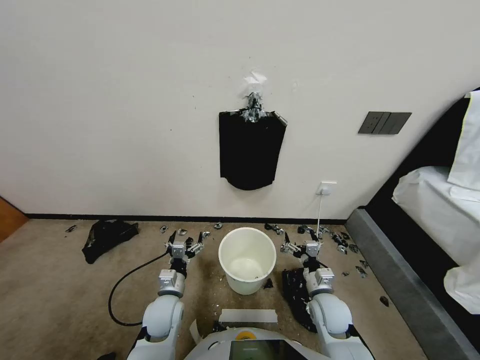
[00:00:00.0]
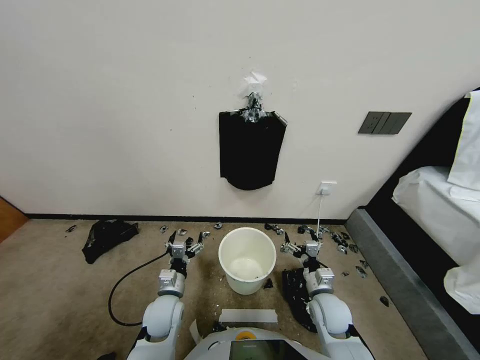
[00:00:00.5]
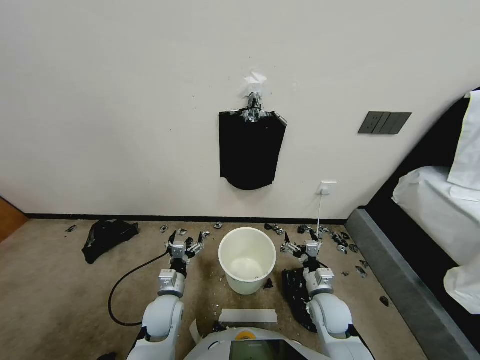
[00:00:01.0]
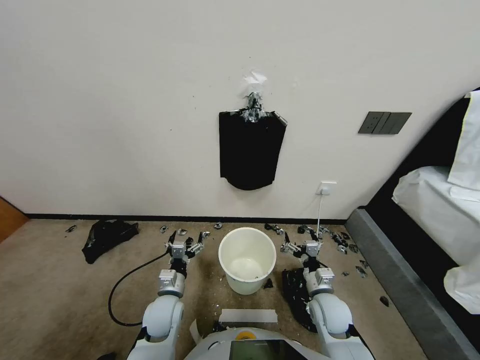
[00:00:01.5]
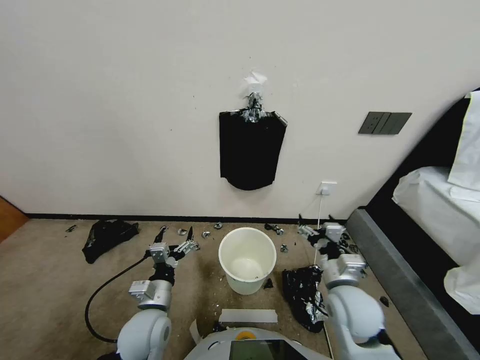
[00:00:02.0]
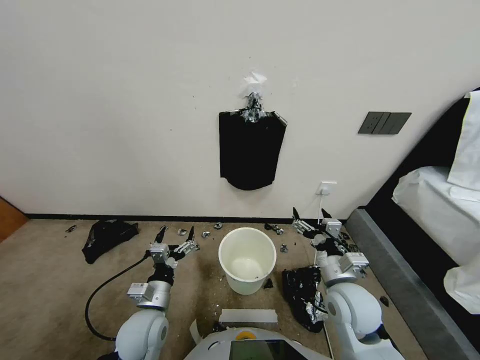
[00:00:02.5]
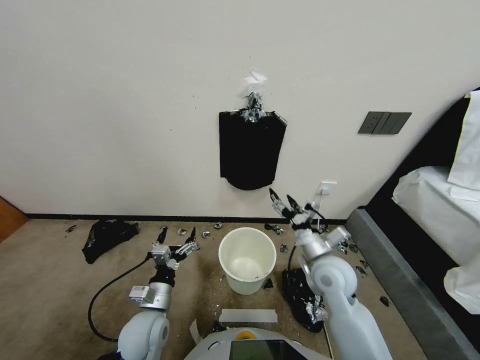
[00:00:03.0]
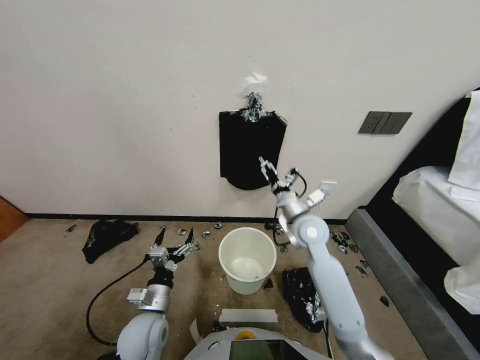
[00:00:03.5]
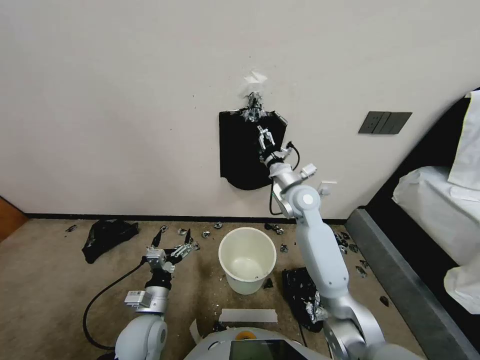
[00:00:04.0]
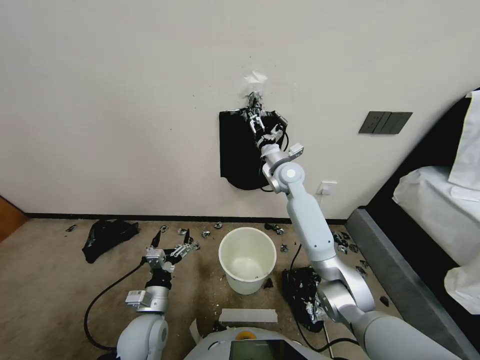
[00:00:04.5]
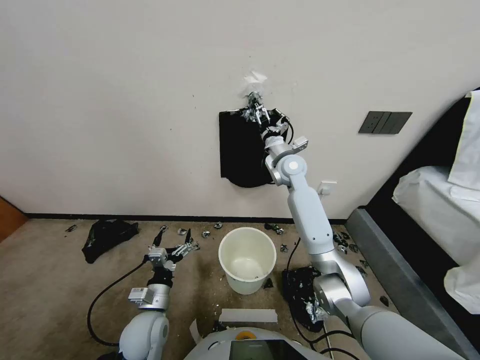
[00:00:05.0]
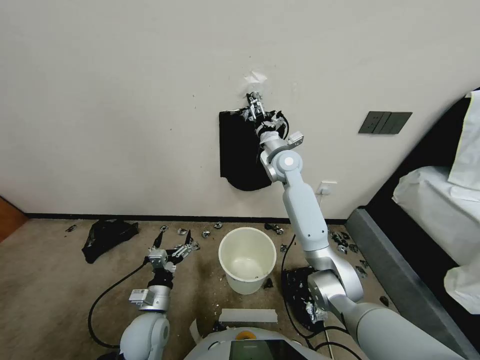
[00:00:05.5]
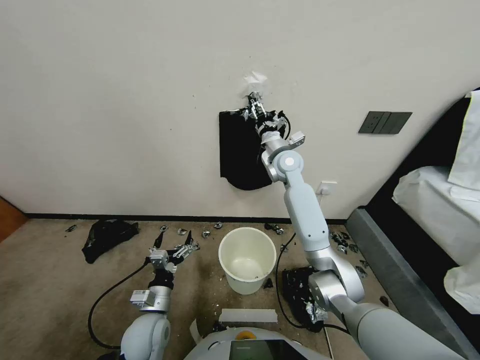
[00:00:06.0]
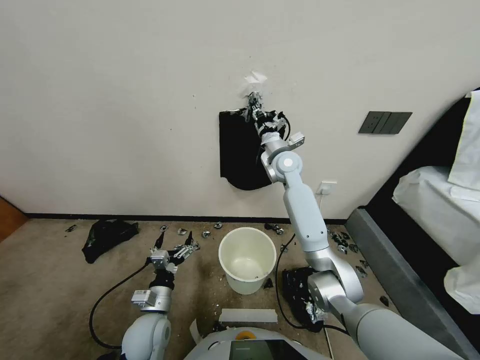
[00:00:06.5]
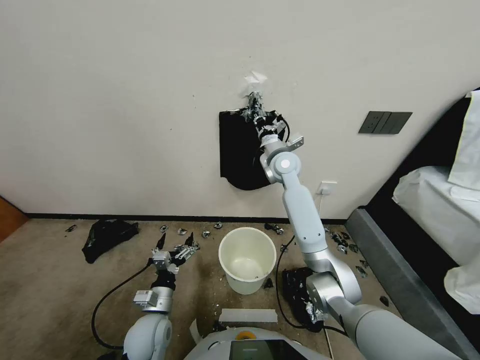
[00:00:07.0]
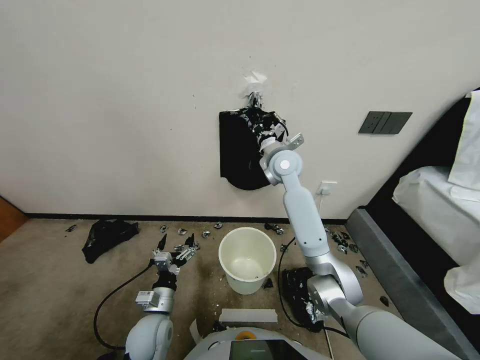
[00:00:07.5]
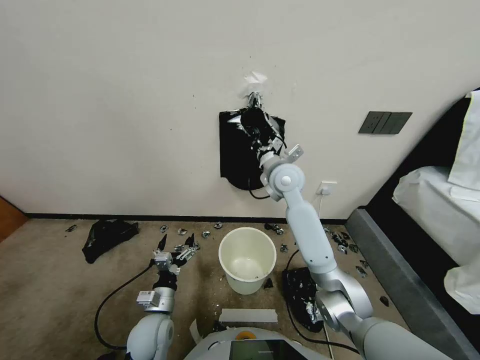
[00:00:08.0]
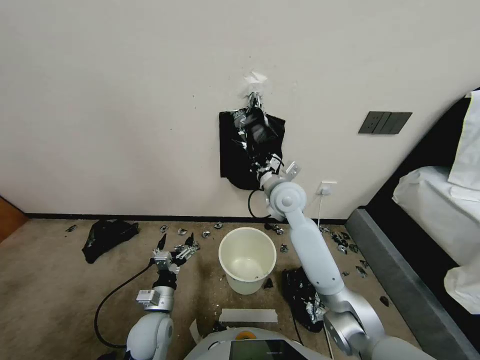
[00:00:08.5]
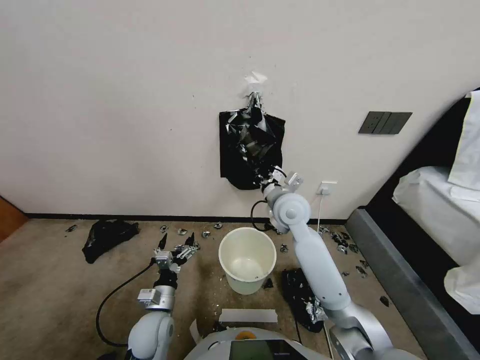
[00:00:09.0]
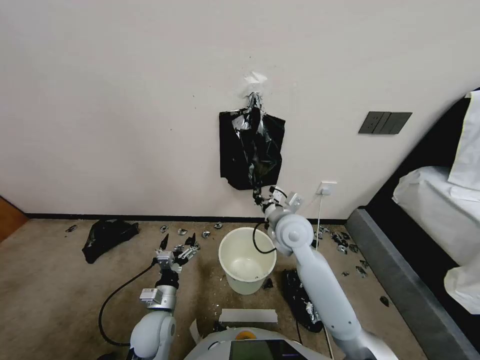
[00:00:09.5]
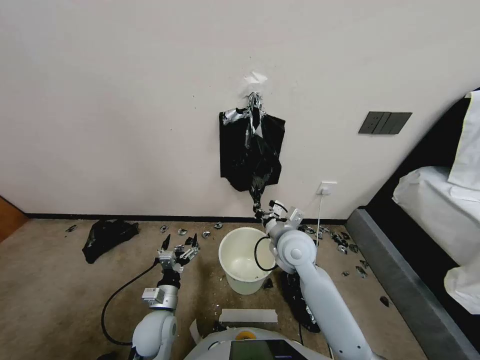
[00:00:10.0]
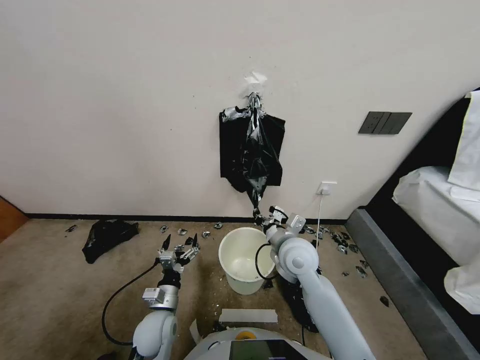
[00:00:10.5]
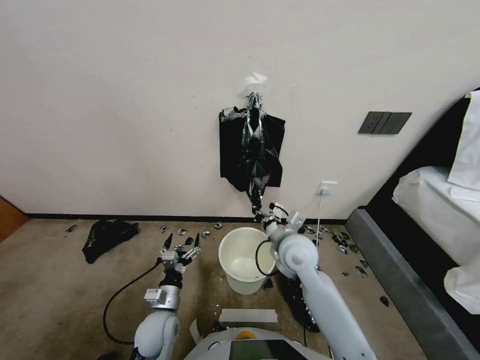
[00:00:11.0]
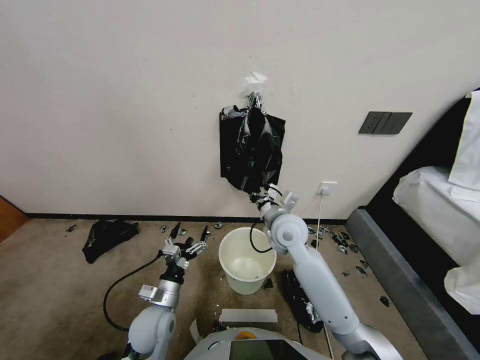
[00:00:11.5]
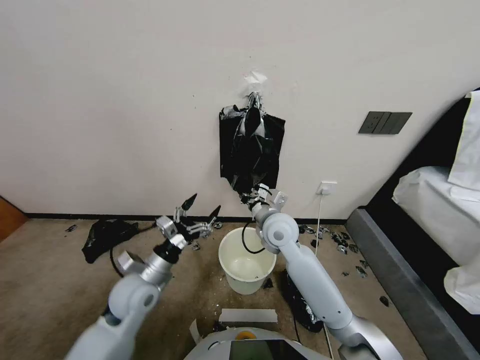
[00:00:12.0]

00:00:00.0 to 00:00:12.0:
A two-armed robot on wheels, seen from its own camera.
Task of the whole recording: Place a trash bag onto the trash bin.
00:00:02.0 to 00:00:04.0: The right gripper shifts some 30 cm forward.
00:00:04.0 to 00:00:06.0: The right gripper shifts some 5 cm forward, and closes.
00:00:06.0 to 00:00:08.0: The right gripper shifts some 10 cm backward, and closes up.
00:00:08.0 to 00:00:10.0: The right gripper shifts some 15 cm backward and downward.
00:00:10.0 to 00:00:12.0: The left gripper shifts some 15 cm upward and forward. Meanwhile the right gripper shifts by roughly 5 cm.

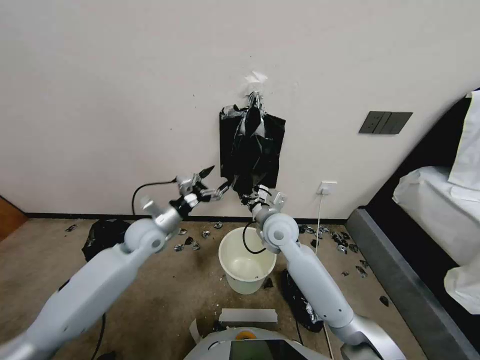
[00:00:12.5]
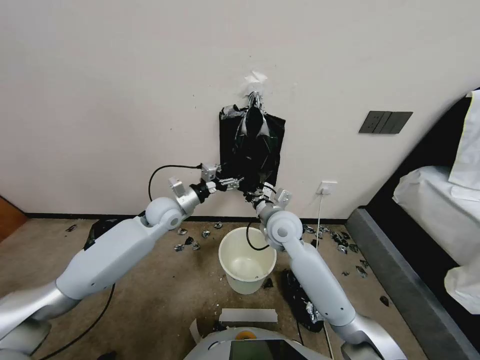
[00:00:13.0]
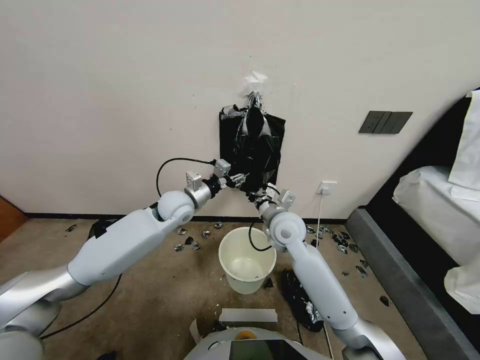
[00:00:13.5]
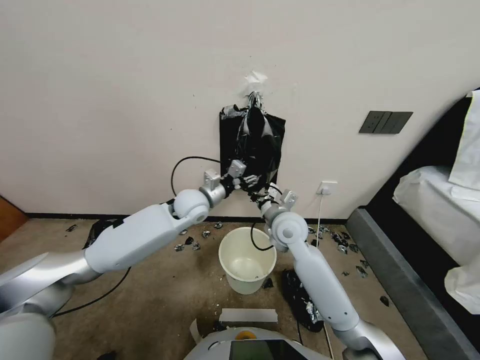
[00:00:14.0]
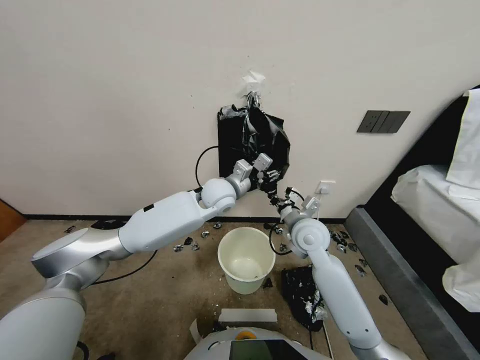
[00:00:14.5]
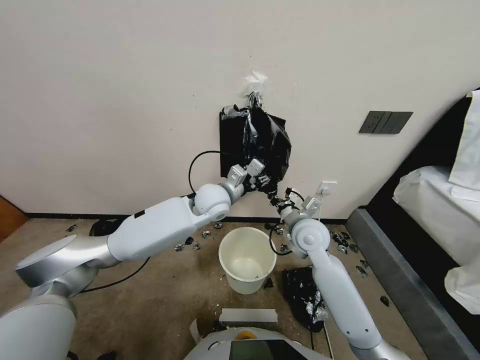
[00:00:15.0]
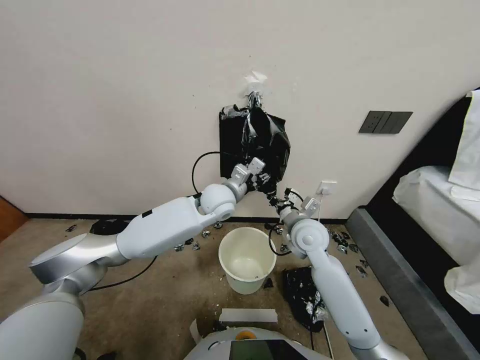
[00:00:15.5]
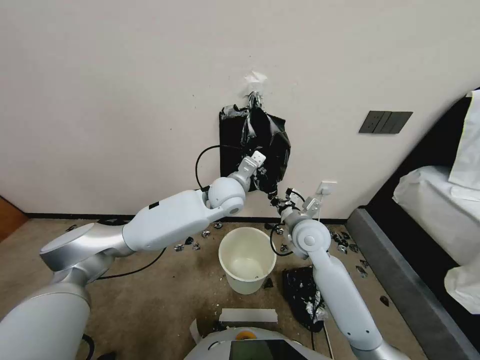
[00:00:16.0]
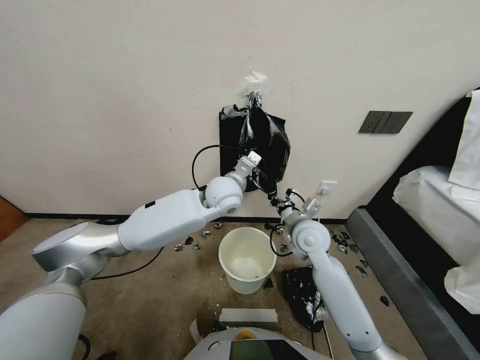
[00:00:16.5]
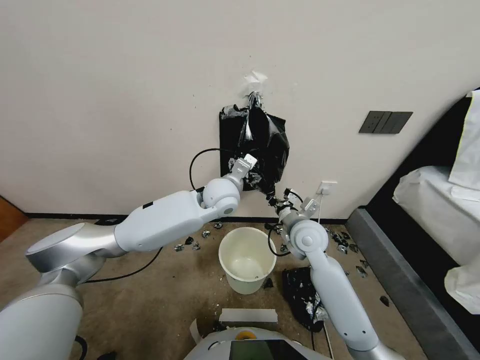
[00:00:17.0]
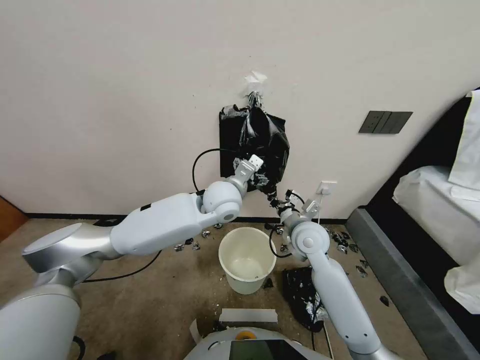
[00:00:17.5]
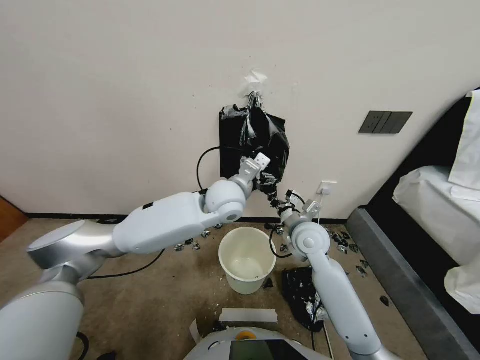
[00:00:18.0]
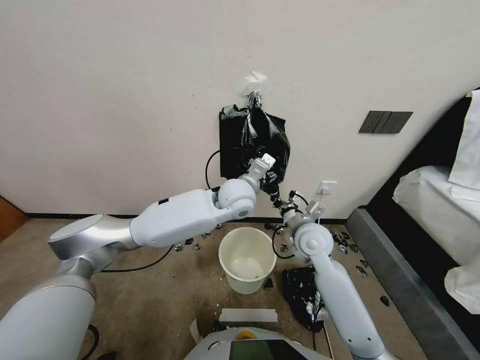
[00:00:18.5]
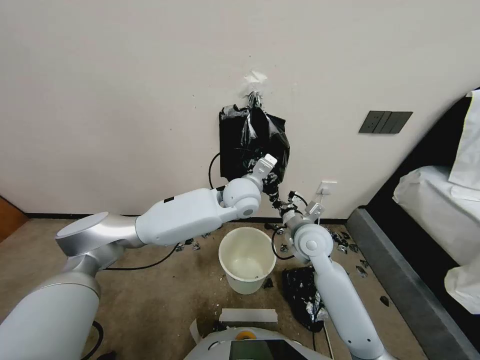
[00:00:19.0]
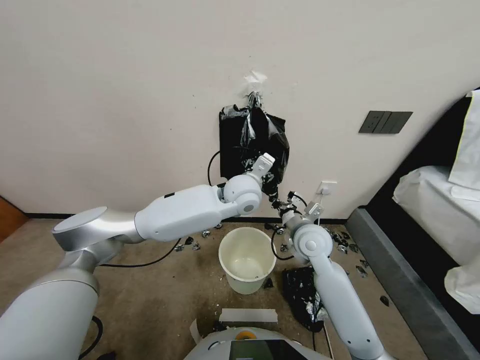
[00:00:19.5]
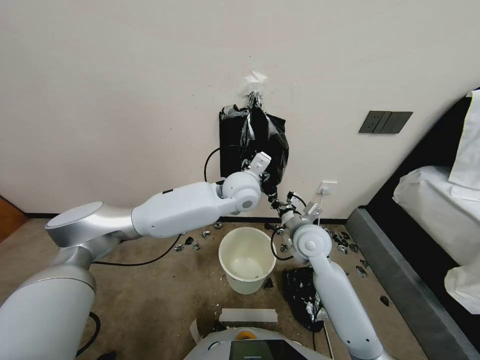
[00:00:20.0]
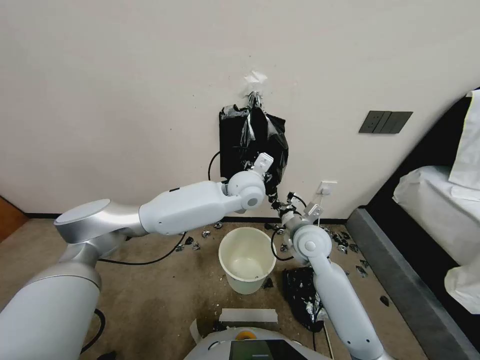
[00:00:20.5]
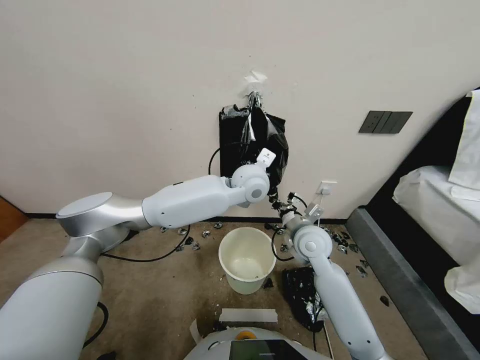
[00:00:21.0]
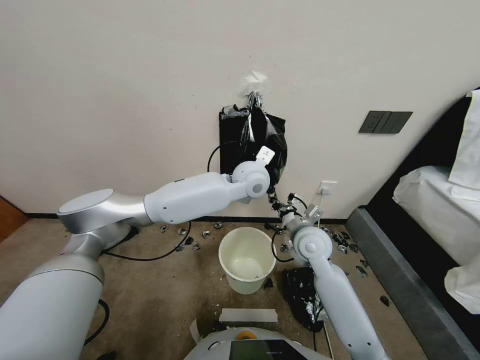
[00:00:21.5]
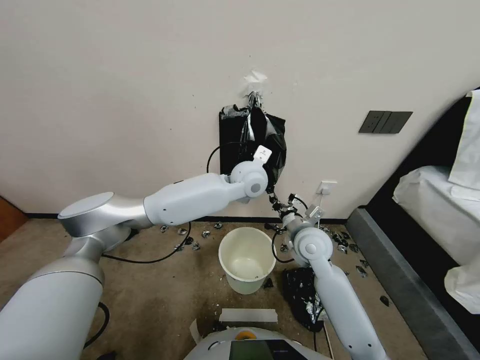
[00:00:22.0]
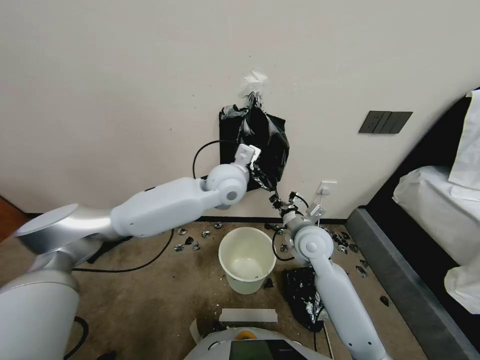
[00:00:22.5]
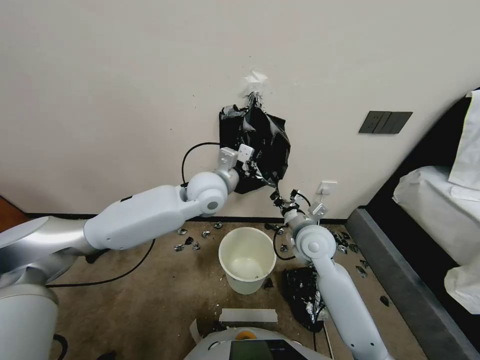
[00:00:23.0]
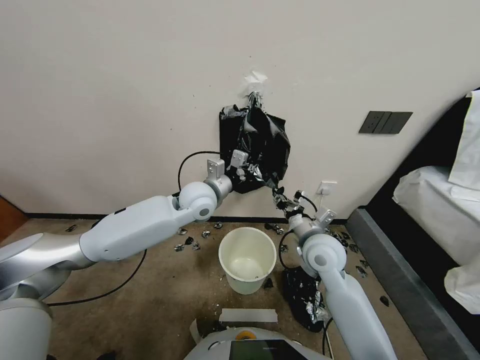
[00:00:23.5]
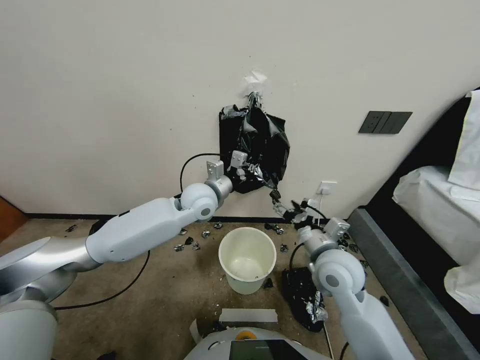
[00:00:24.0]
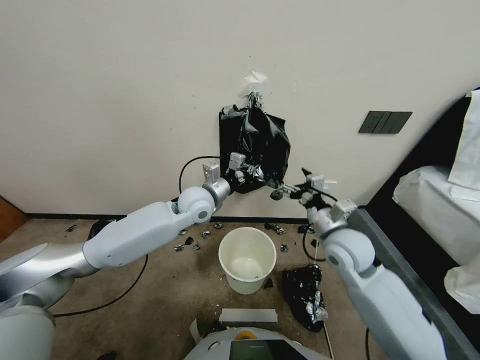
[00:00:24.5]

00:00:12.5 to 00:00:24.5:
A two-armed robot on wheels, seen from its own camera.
Task of the whole recording: Place a trash bag onto the trash bin.
00:00:12.5 to 00:00:14.5: The right gripper shifts about 10 cm to the right; the left gripper shifts some 20 cm to the right, and closes its fingers.
00:00:16.5 to 00:00:18.5: The grippers make only small movements.
00:00:18.5 to 00:00:20.5: The grippers make only small movements.
00:00:20.5 to 00:00:22.5: The left gripper travels to the left by about 5 cm, and closes.
00:00:22.5 to 00:00:24.5: The right gripper moves to the right, roughly 5 cm, travels backward and back again, some 10 cm each way, and opens up. The left gripper travels to the left and downward by roughly 10 cm.

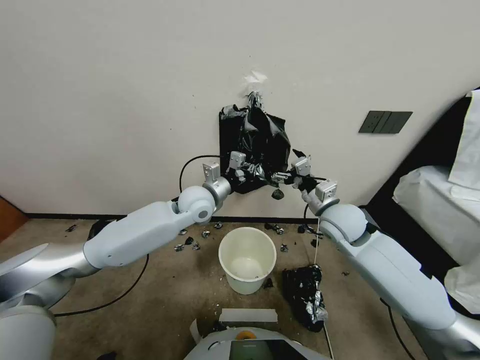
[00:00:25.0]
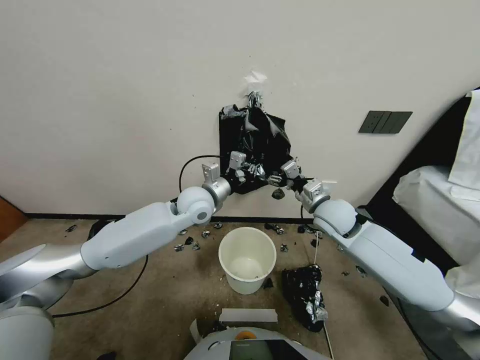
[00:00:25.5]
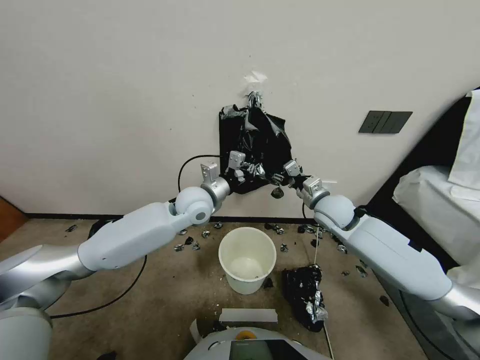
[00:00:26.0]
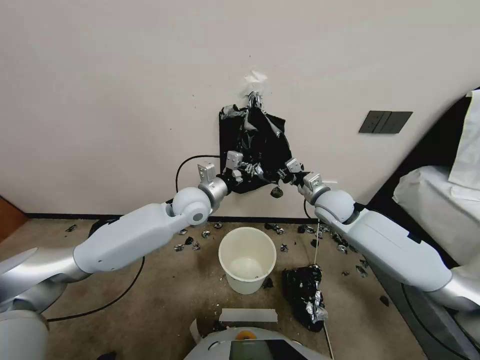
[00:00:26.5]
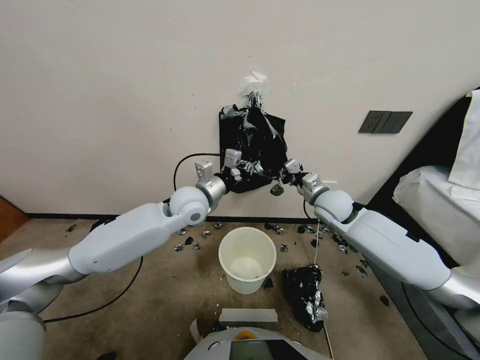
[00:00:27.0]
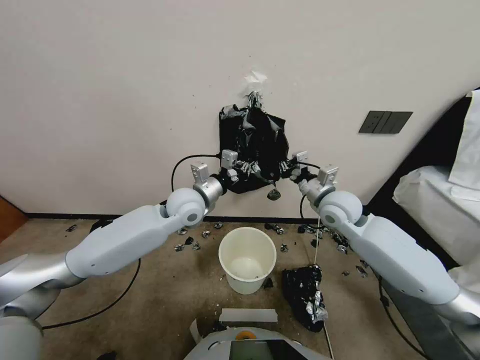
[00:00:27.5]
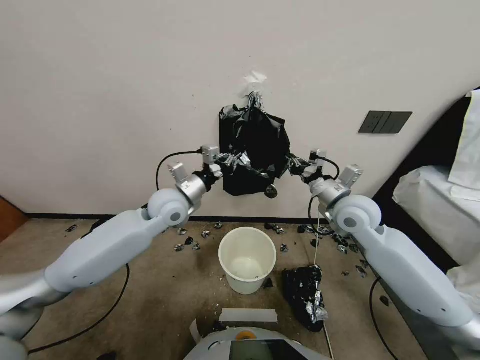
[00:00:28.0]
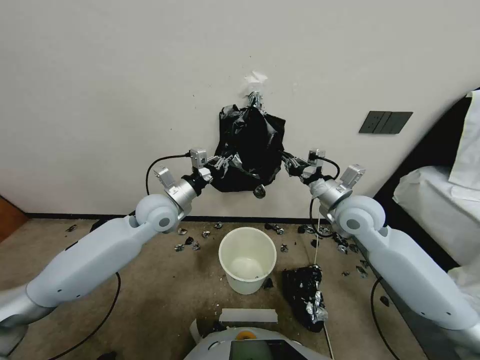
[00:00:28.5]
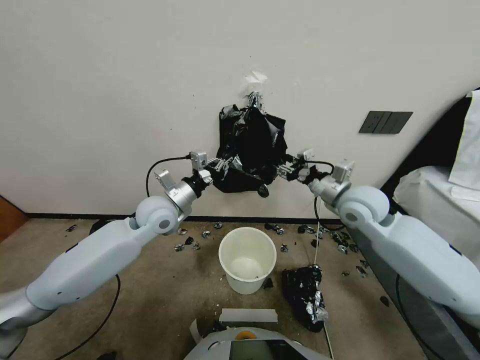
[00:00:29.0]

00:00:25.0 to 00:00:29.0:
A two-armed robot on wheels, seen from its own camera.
Task of the whole recording: Place a trash bag onto the trash bin.
00:00:25.0 to 00:00:27.0: The right gripper travels forward by approximately 5 cm, and closes its fingers.
00:00:27.0 to 00:00:29.0: The left gripper is displaced to the left by roughly 10 cm. The right gripper travels upward by some 5 cm, and opens.
